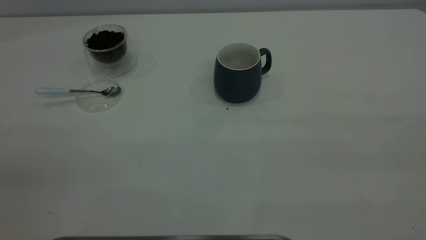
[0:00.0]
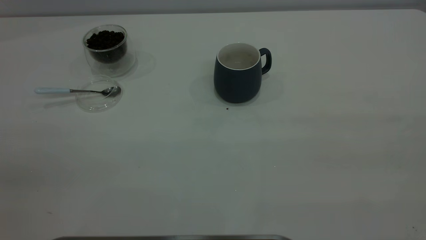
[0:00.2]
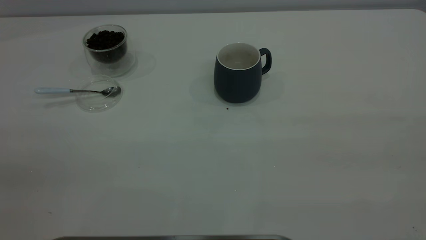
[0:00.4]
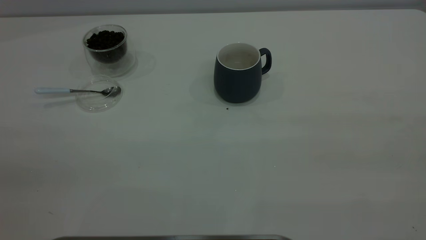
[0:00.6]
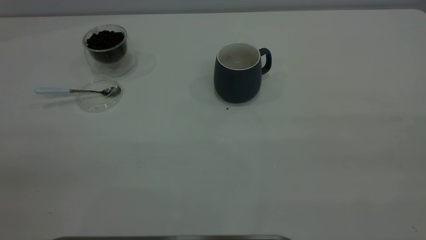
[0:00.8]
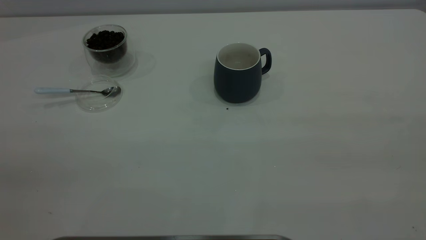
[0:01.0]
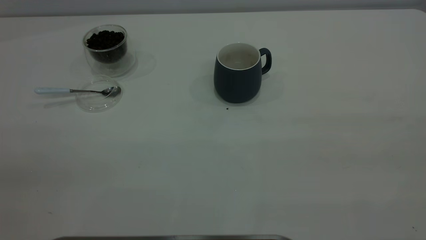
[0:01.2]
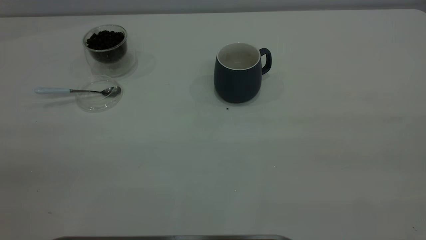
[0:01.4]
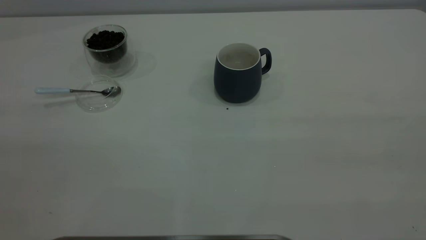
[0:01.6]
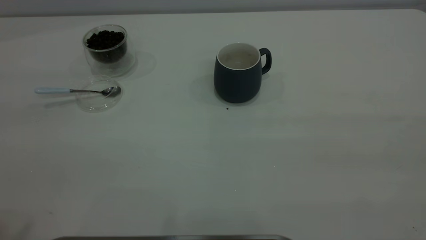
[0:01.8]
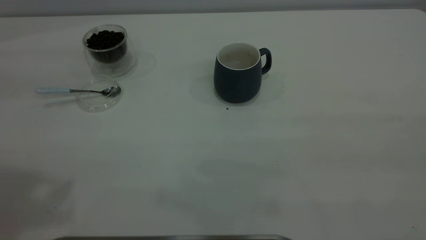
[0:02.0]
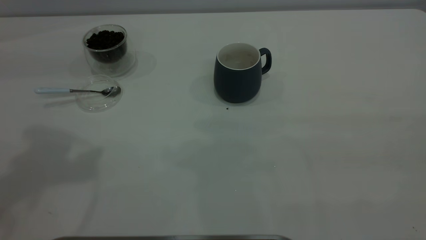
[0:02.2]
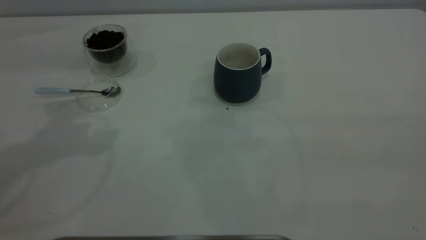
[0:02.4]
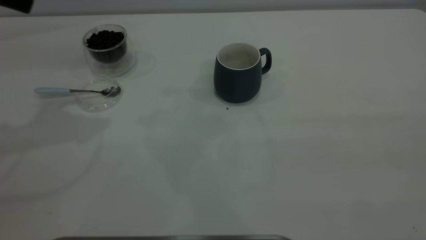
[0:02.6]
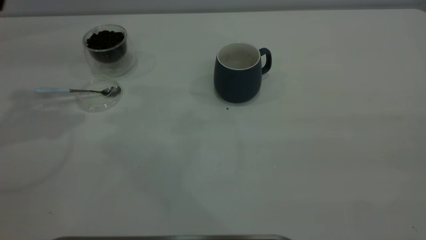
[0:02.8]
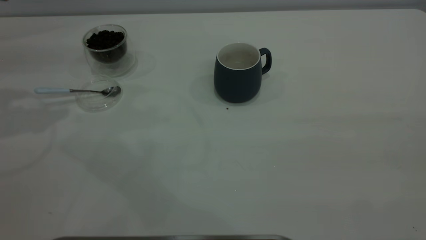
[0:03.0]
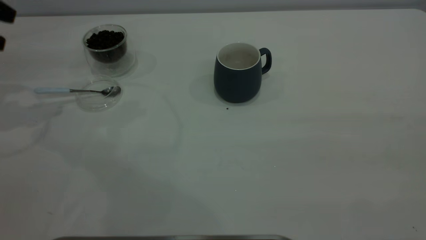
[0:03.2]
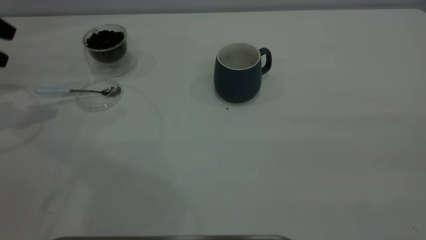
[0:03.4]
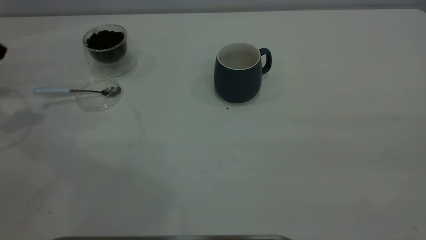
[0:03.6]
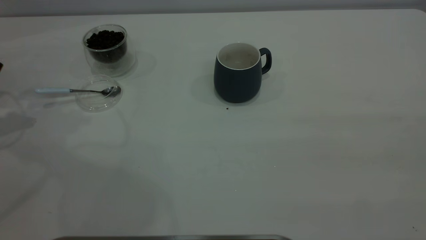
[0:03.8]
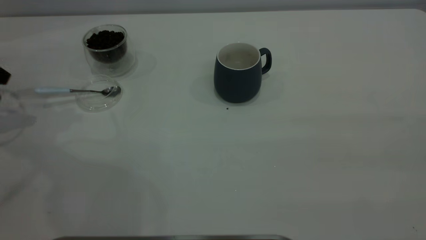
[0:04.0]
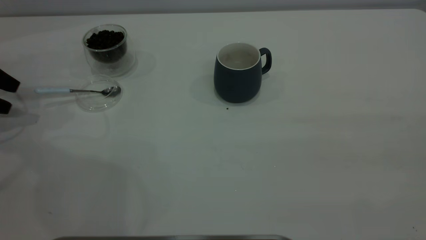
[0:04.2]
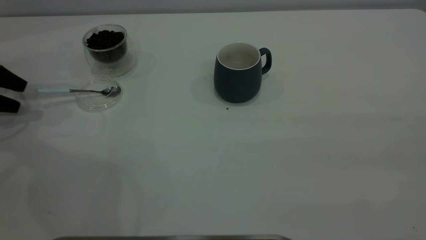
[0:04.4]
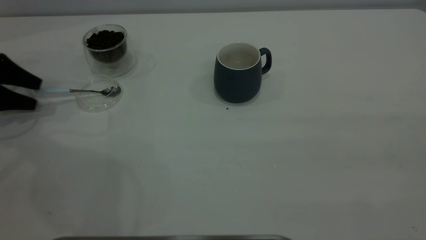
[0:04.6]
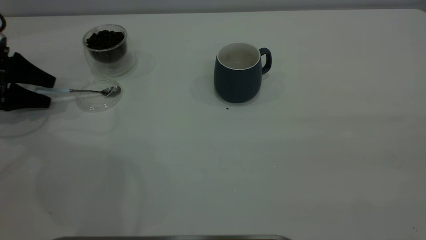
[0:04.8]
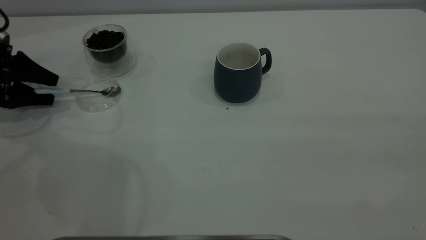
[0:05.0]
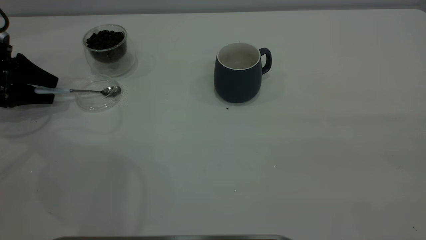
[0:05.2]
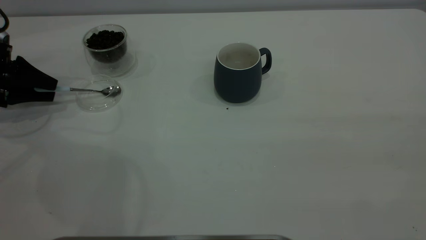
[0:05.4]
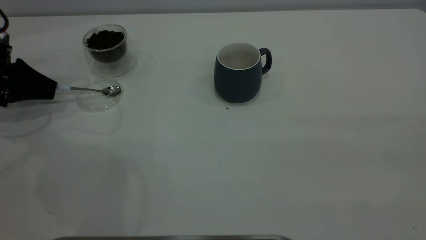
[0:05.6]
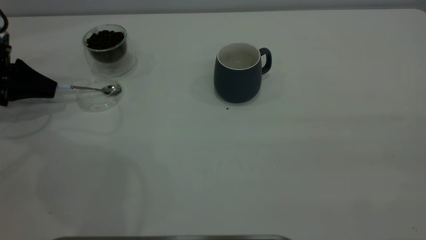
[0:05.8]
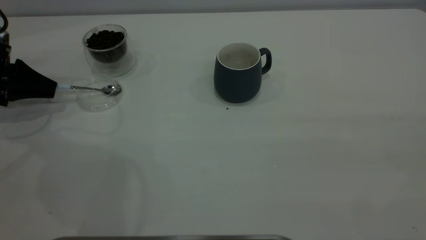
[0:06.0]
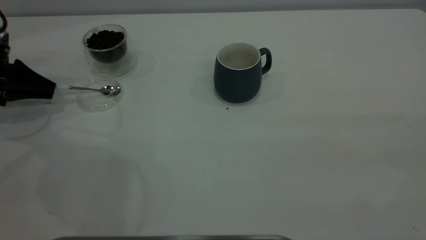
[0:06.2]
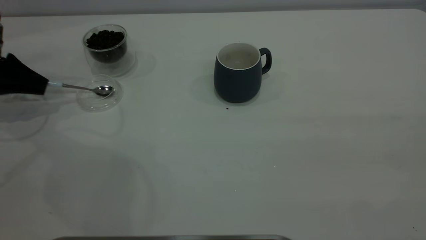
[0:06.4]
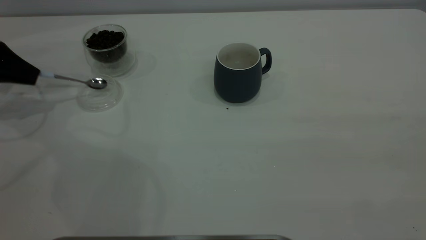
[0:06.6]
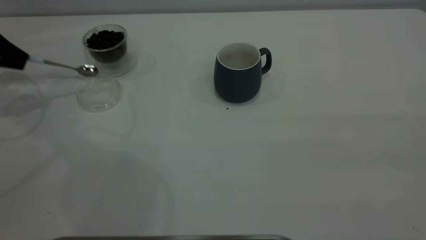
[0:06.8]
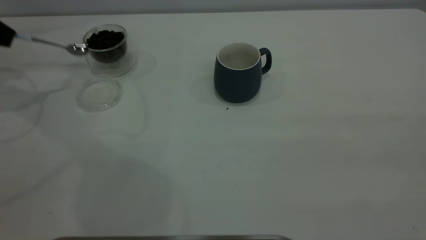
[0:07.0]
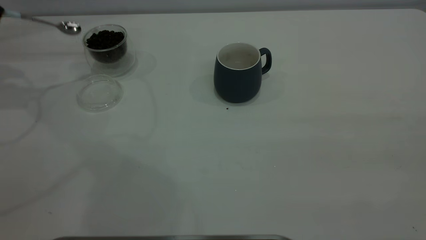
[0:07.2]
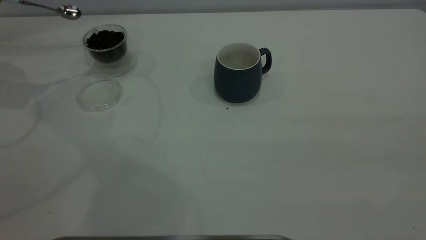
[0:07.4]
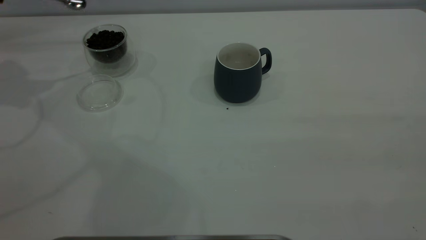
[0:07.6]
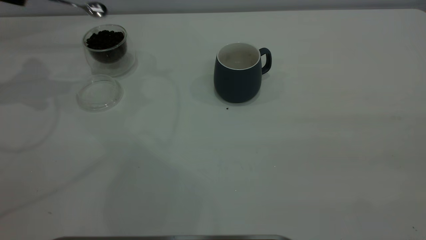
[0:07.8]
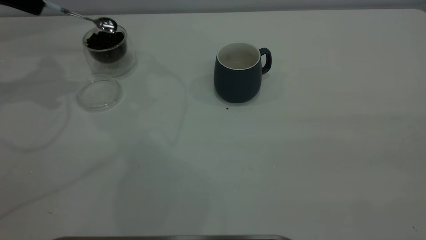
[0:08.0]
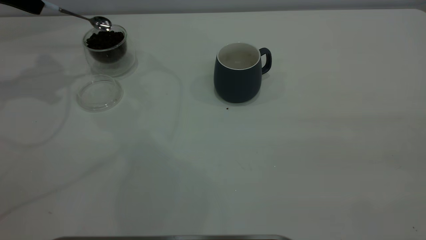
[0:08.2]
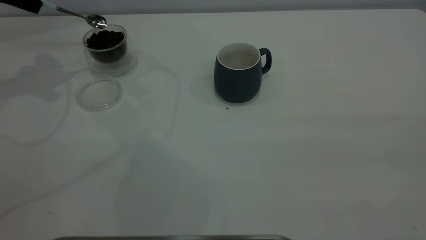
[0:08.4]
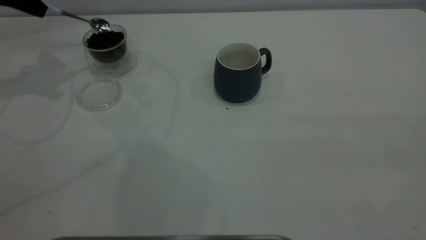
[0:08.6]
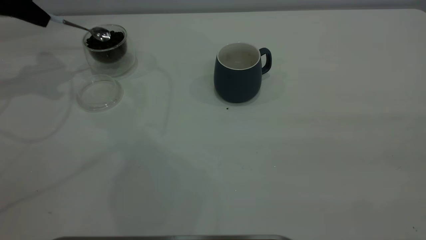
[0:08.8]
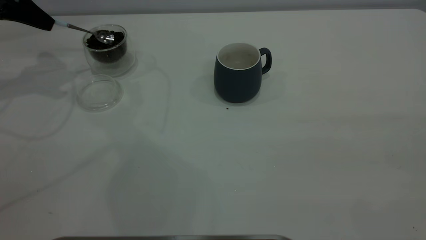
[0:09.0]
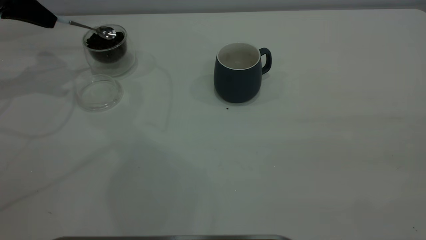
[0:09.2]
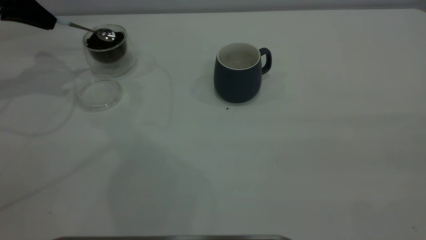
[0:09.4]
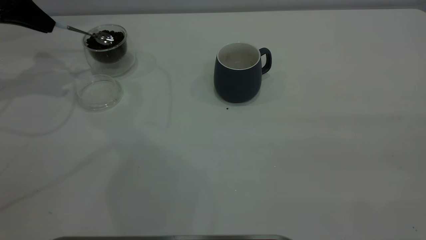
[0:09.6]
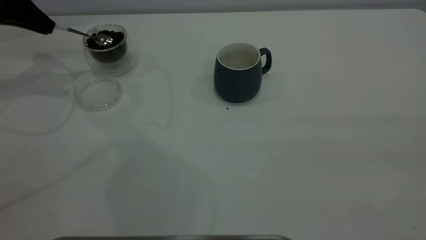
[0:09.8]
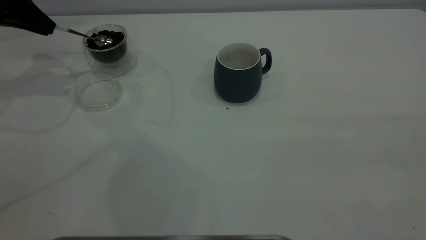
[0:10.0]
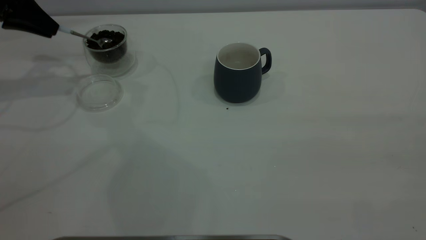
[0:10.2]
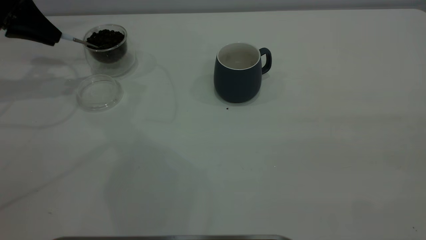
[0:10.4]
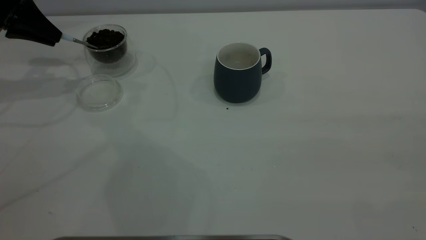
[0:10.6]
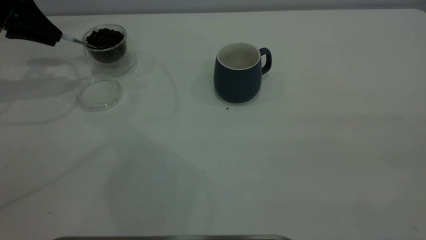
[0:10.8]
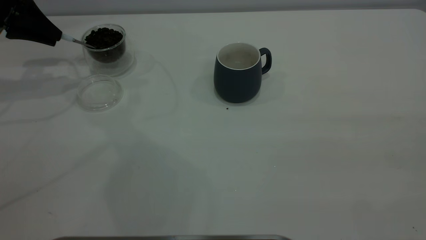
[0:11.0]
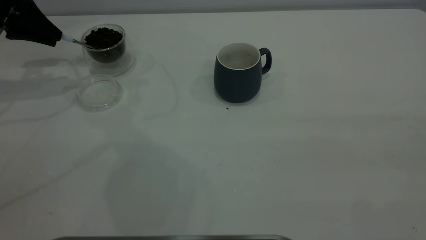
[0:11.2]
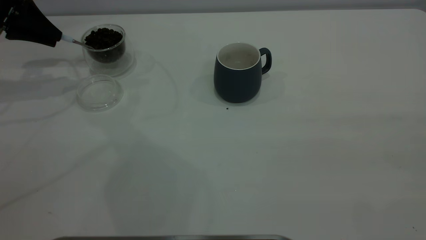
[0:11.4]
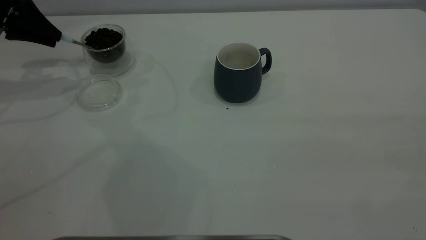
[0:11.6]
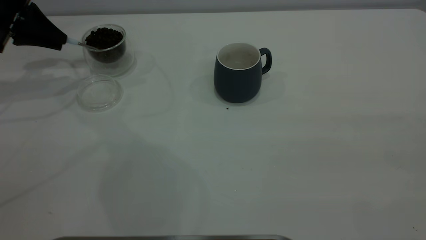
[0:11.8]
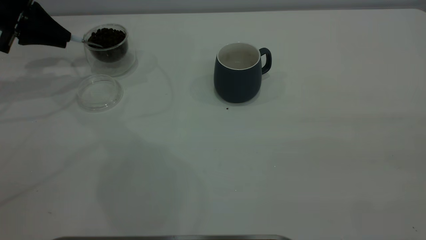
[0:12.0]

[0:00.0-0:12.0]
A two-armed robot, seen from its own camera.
Task of the whole recording: the right gripper place the grey cup in the center of the table, the left gripper take the blue spoon from the cup lid and scoop out the coffee beans from the coffee cup and put them into the grey cup, the left gripper put the spoon back into the cup lid.
Step, 0:00.0 to 0:07.0: Pick up the spoon.
0:03.0 to 0:04.4: The left gripper shifts roughly 20 cm downward and to the left.
0:04.4 to 0:06.0: The left gripper closes up.
0:06.0 to 0:07.6: The left gripper is displaced upward by approximately 20 cm.
0:07.6 to 0:09.0: The left gripper ends up approximately 5 cm from where it was.

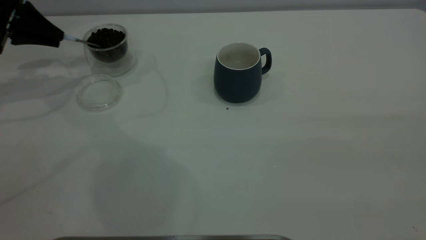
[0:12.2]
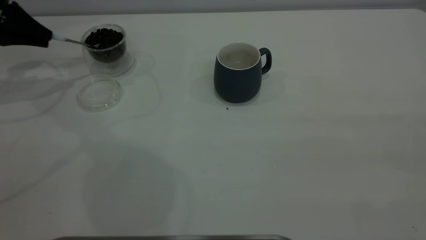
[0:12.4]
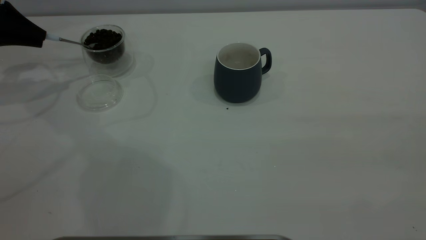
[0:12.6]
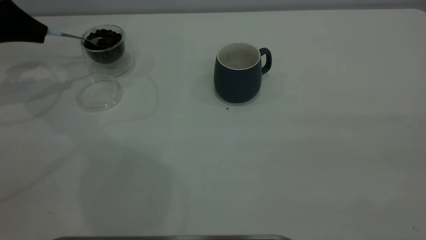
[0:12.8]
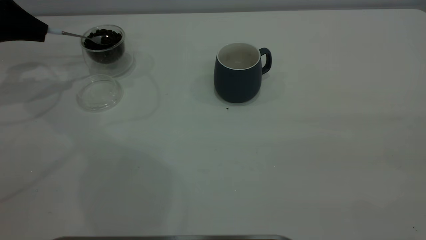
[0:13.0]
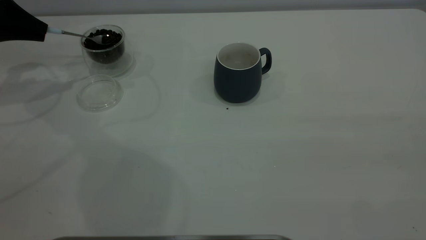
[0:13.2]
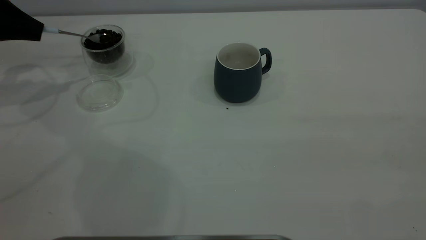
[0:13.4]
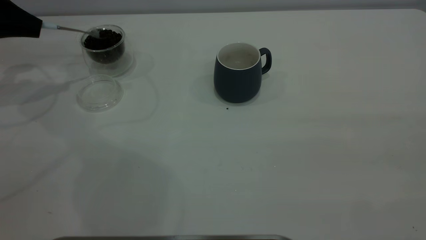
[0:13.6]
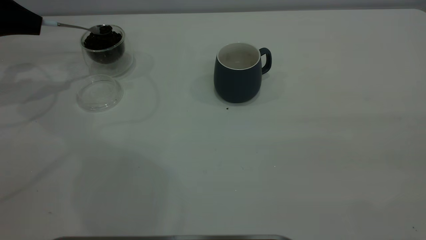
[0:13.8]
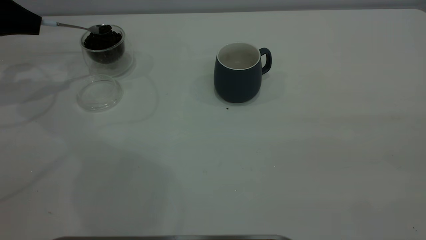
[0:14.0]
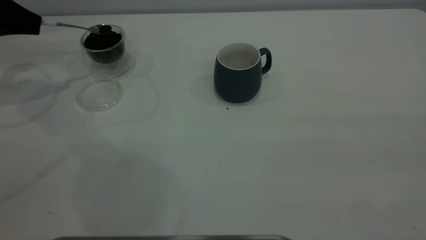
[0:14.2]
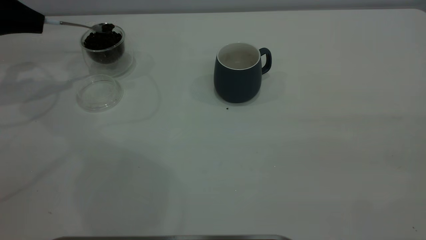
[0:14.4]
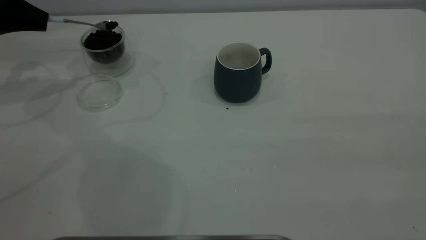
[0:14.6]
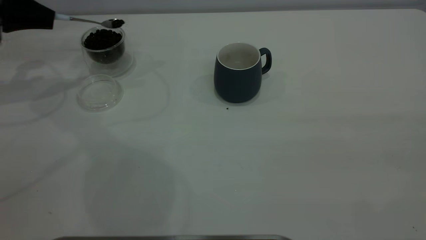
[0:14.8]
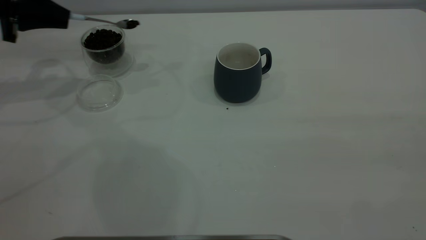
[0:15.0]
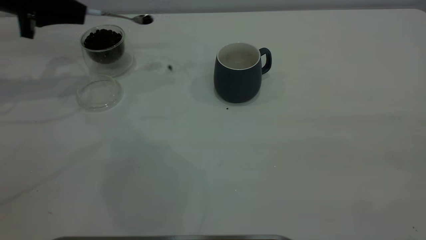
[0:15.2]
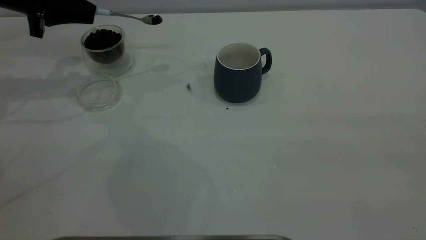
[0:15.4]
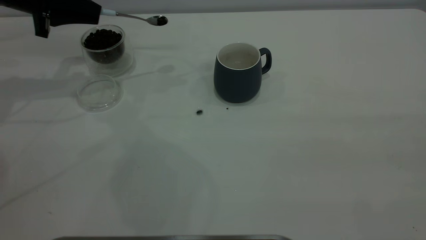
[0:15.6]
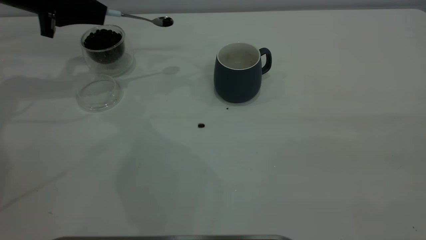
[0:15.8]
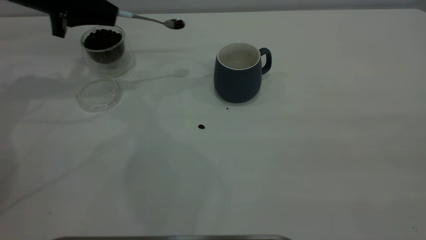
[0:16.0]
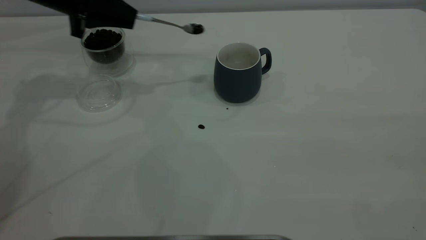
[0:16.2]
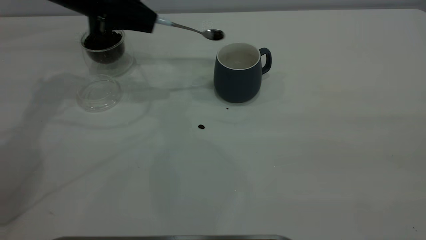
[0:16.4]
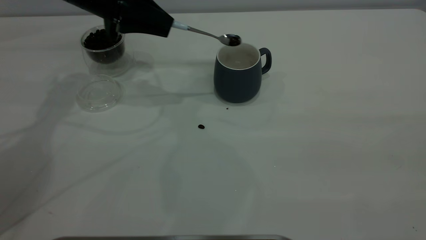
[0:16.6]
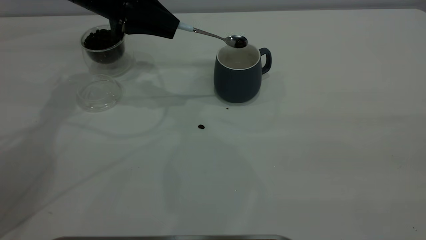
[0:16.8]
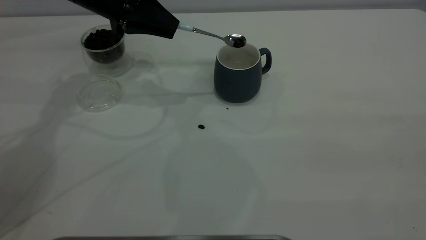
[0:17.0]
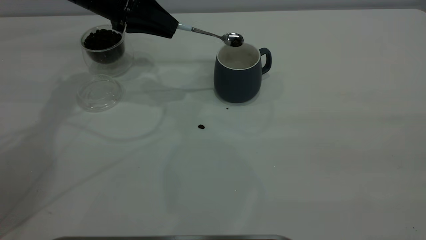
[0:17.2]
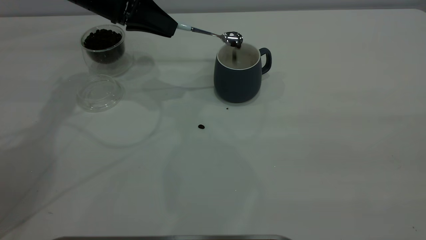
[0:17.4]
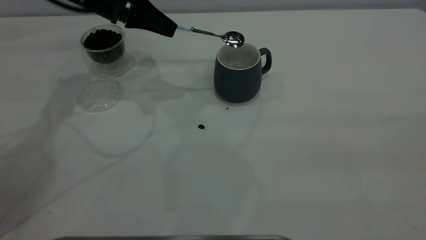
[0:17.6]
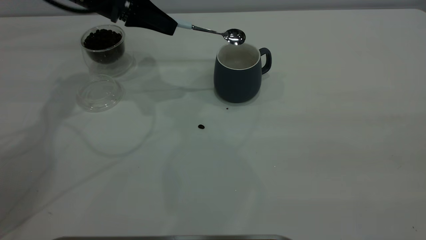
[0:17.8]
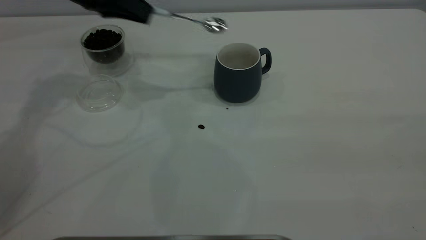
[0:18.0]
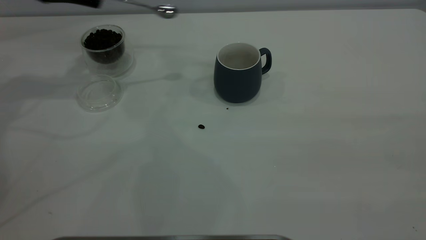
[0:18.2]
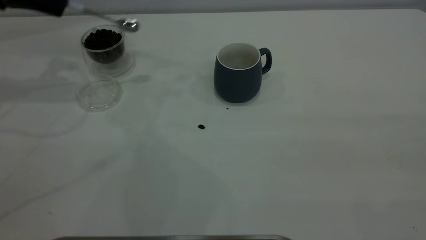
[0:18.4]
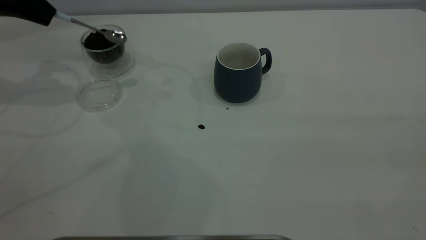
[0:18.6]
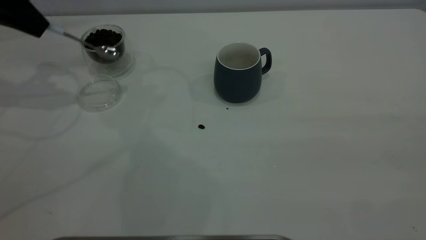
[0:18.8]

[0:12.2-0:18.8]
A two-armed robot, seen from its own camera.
Task of the whole recording: the right gripper place the grey cup in the center of the table, the left gripper take the blue spoon from the cup lid and scoop out the coffee beans from the coffee cup and put them into the grey cup, the left gripper put the spoon back into the cup lid.
Step, 0:12.2 to 0:17.8: Scoop a spoonful of beans into the cup.
0:12.2 to 0:13.8: The grippers move only a little.
0:13.8 to 0:15.4: The left gripper heads to the right, covering roughly 10 cm.
0:15.4 to 0:17.2: The left gripper travels to the right by roughly 15 cm.
0:17.2 to 0:18.8: The left gripper heads to the left, covering about 15 cm.
